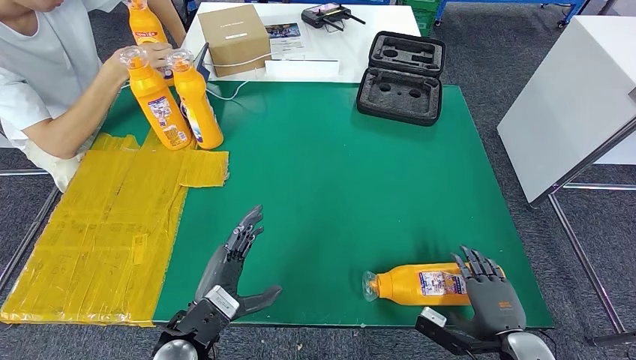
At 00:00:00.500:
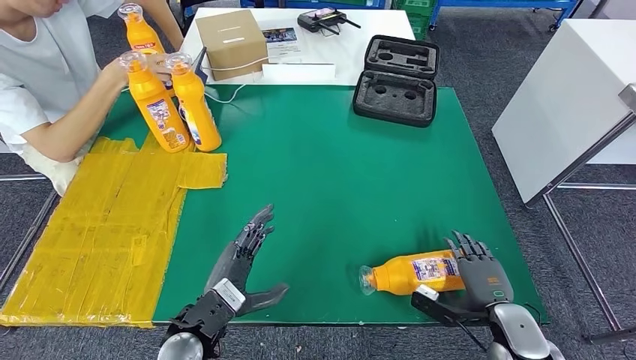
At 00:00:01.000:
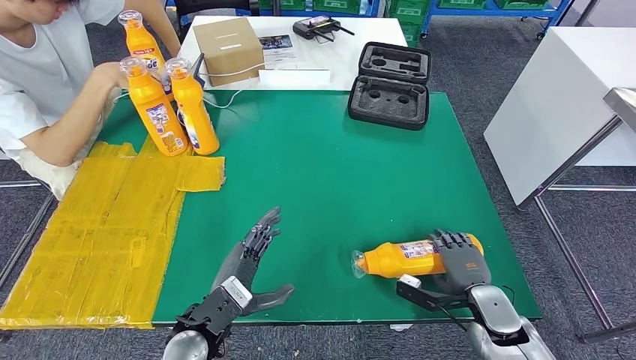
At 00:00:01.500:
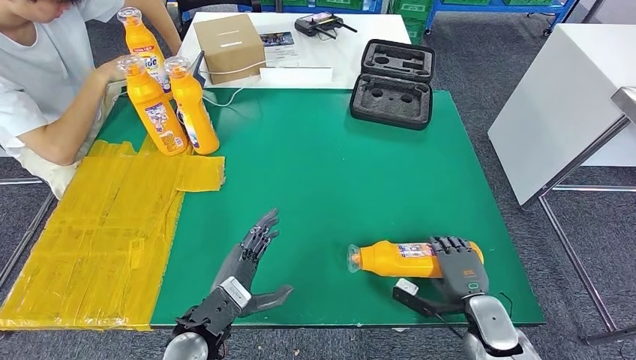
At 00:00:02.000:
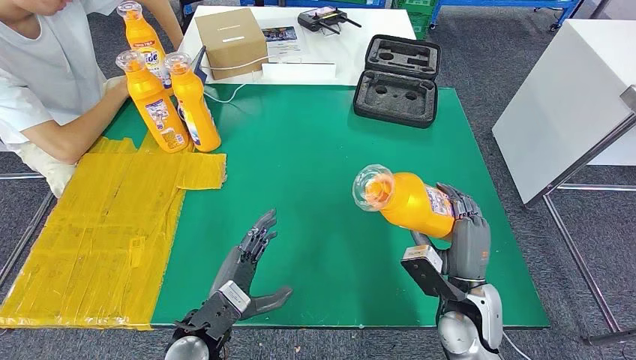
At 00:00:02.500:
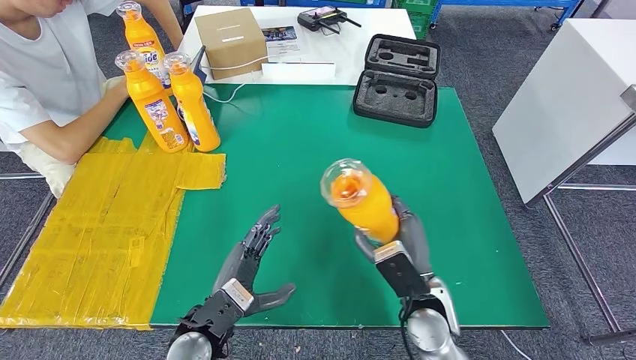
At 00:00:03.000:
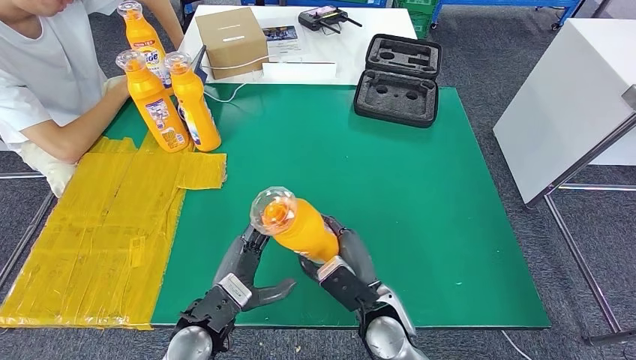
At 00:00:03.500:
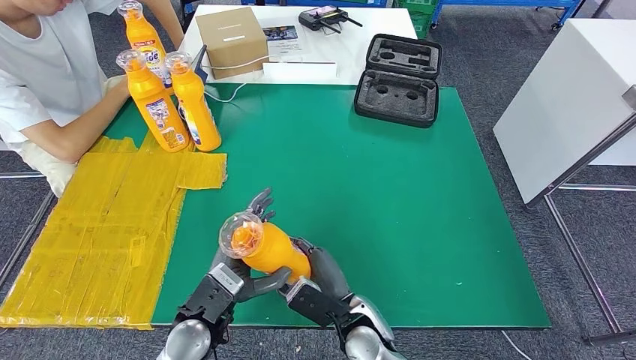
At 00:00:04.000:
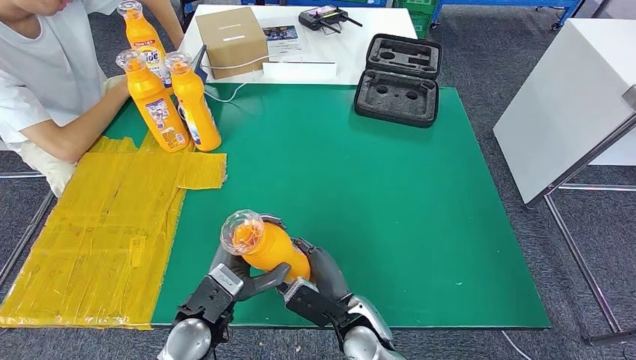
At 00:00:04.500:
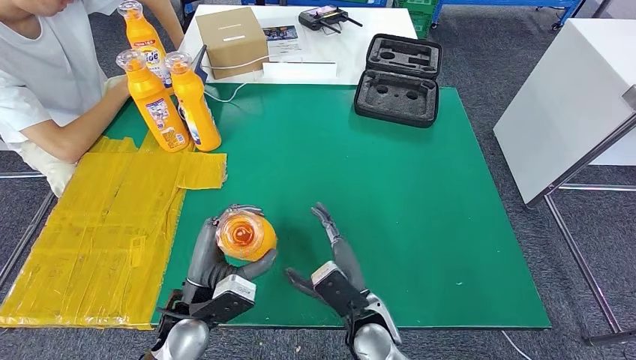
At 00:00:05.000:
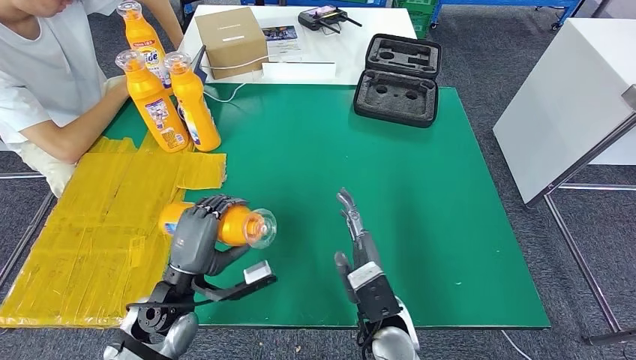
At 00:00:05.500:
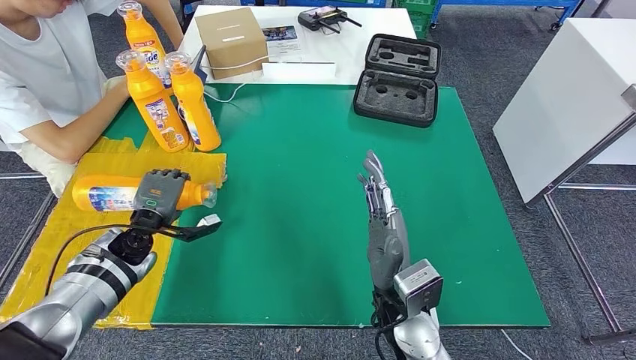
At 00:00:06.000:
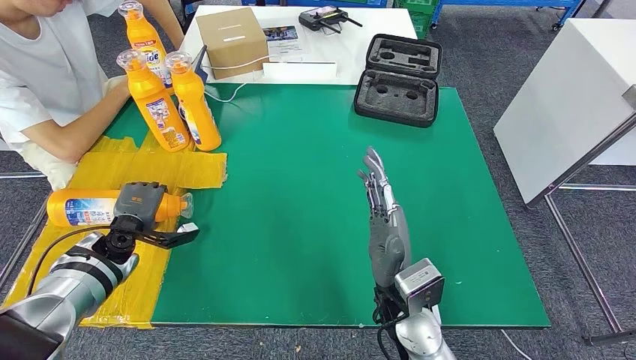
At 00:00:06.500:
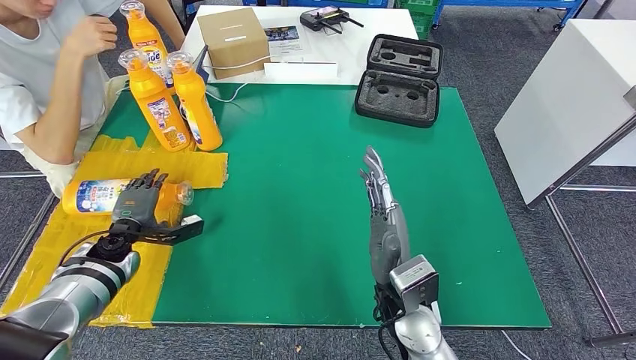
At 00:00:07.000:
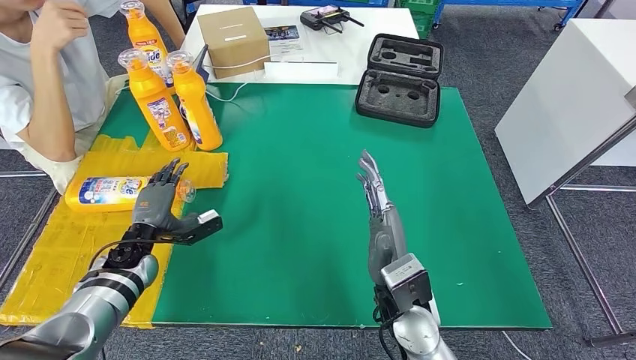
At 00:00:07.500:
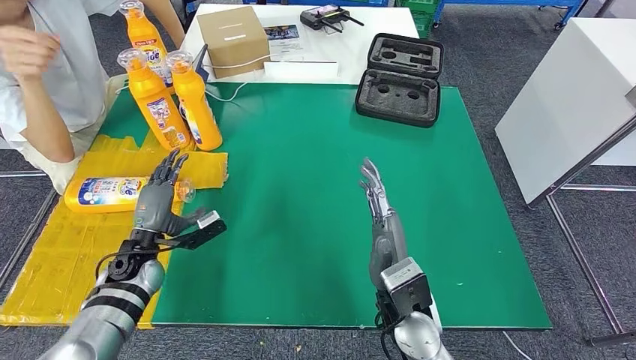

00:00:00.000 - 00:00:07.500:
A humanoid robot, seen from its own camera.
Step, 00:00:00.000 - 00:00:02.000: Pick up the bottle from the table.
Step, 00:00:03.000 - 00:00:07.500: Flip the bottle to face forward.
00:00:02.000 - 00:00:04.000: The right hand moves to the left, roughly 20 cm.
00:00:04.000 - 00:00:05.500: The right hand travels upward and to the right by about 10 cm; the left hand heads to the left and forward, covering about 20 cm.
